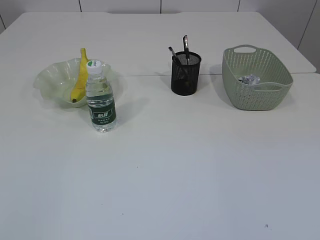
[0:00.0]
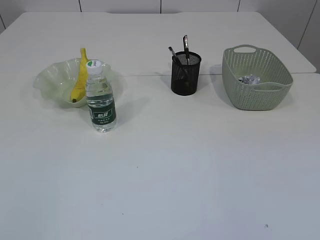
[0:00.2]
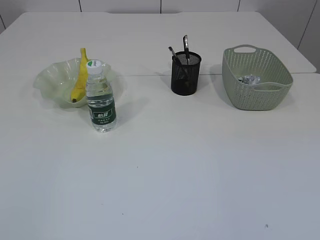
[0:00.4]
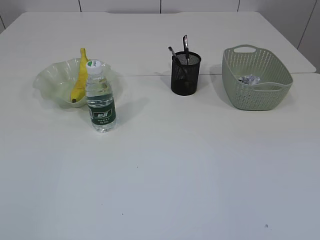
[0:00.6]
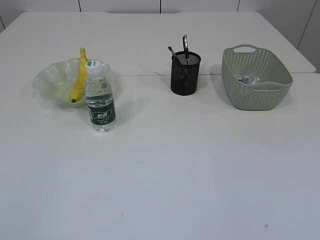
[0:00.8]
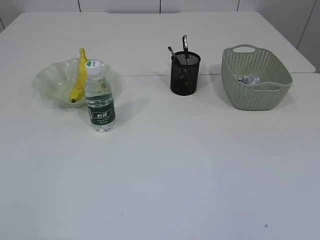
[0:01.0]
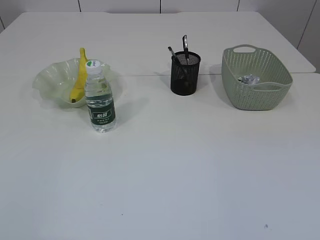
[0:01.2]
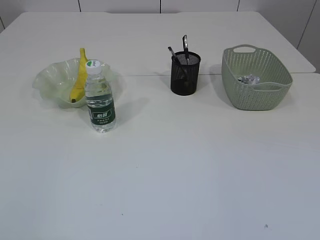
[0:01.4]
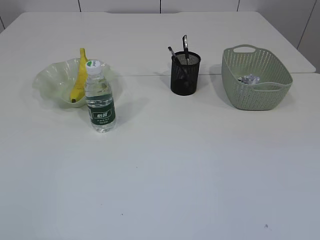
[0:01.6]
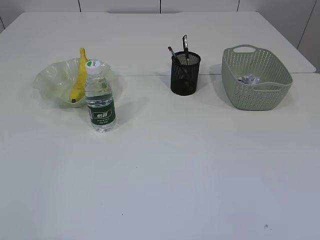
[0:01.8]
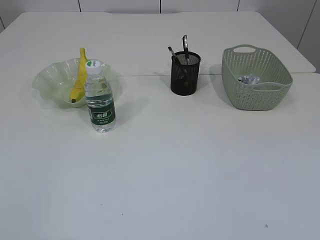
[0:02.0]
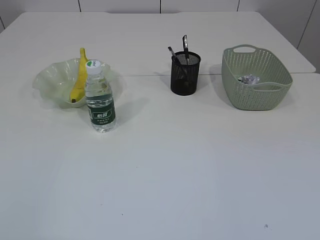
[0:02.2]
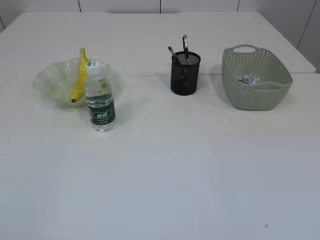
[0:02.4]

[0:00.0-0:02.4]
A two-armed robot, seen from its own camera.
0:01.2 to 0:02.4: Both grippers stay about where they are.
